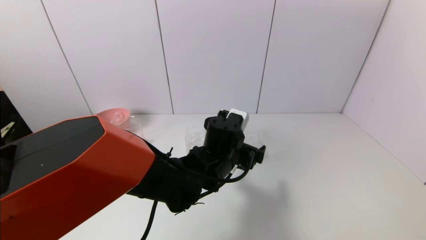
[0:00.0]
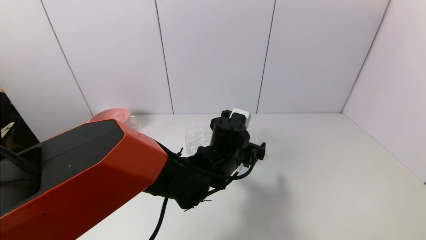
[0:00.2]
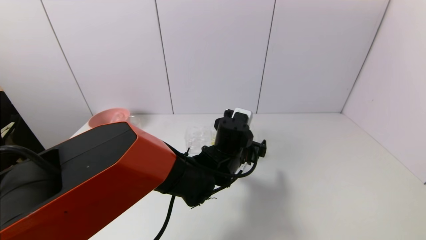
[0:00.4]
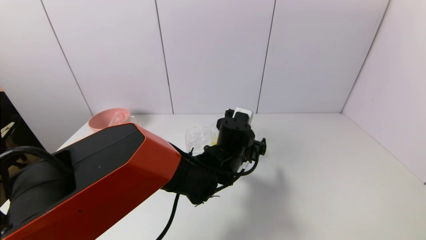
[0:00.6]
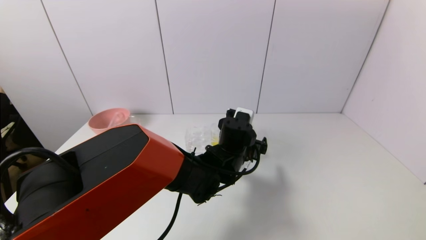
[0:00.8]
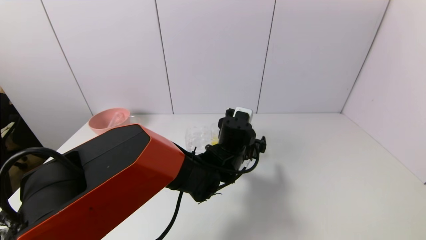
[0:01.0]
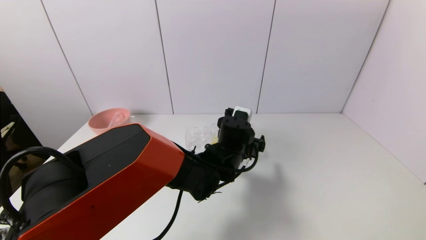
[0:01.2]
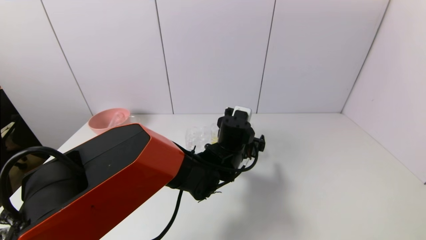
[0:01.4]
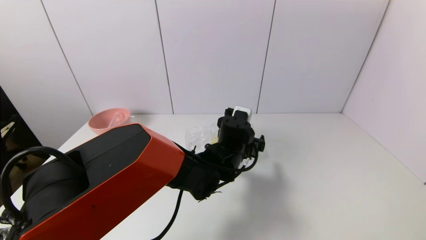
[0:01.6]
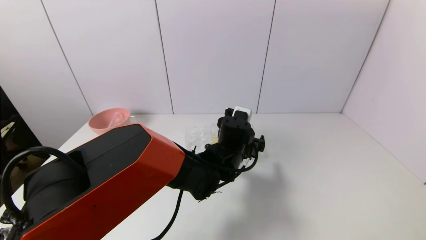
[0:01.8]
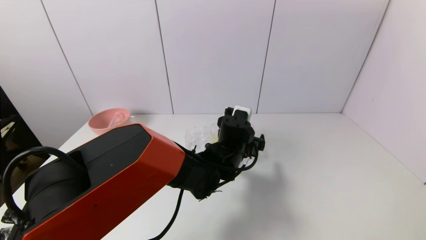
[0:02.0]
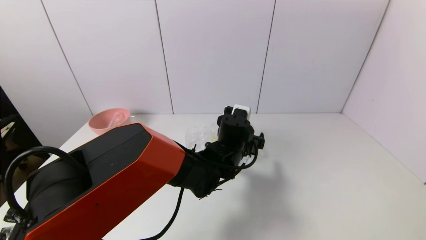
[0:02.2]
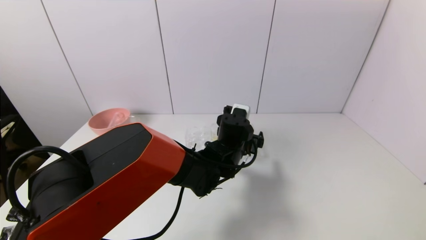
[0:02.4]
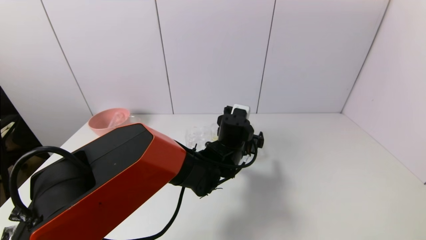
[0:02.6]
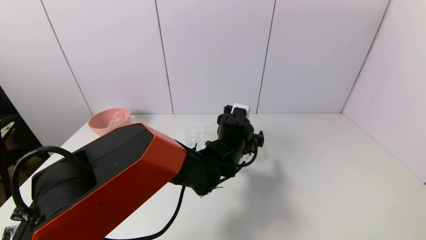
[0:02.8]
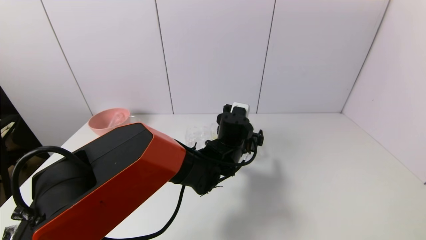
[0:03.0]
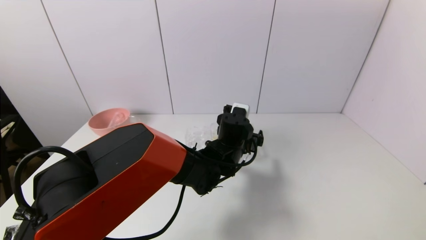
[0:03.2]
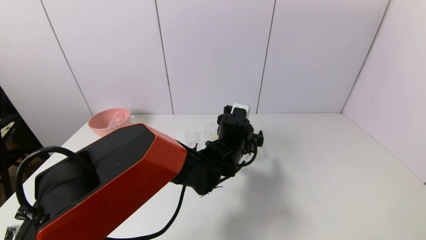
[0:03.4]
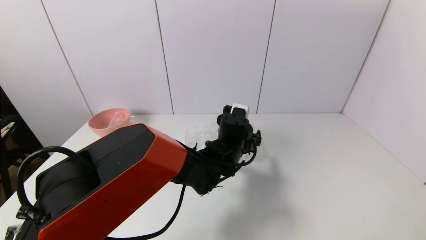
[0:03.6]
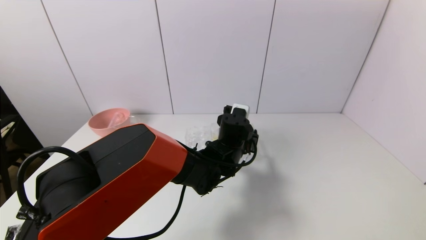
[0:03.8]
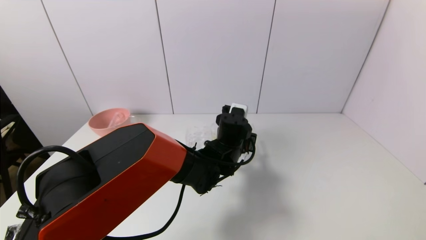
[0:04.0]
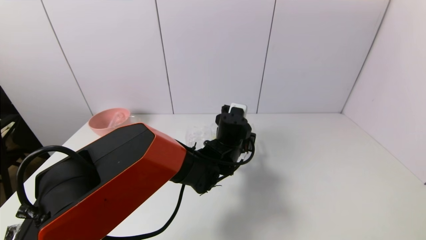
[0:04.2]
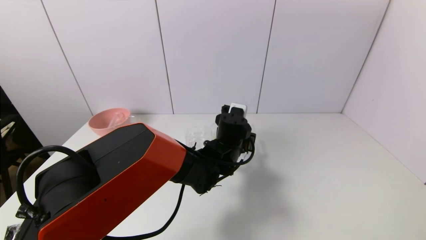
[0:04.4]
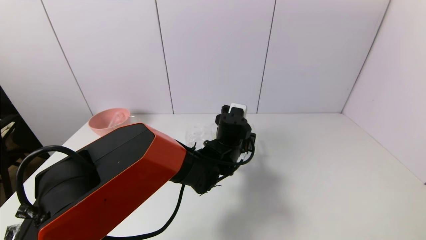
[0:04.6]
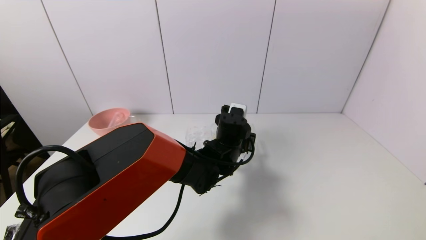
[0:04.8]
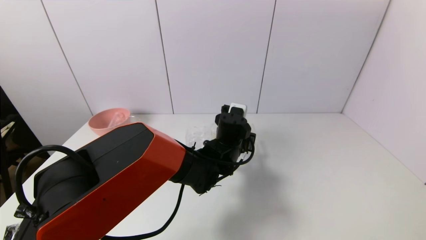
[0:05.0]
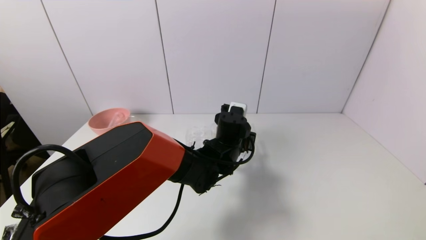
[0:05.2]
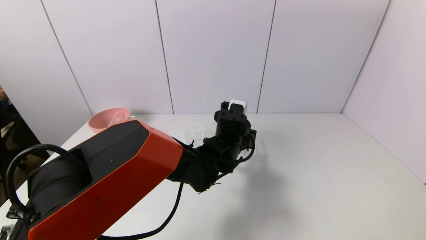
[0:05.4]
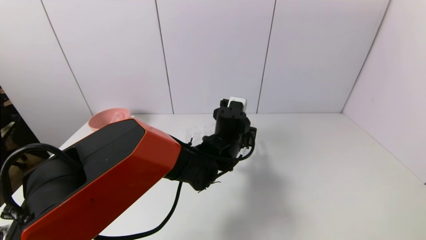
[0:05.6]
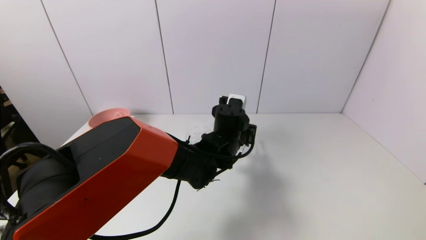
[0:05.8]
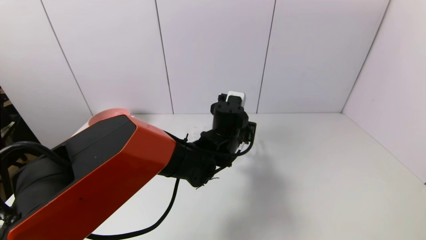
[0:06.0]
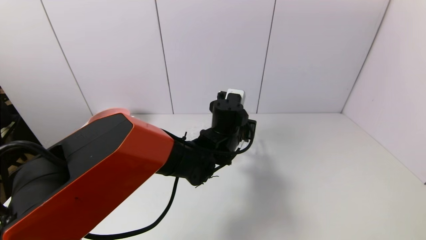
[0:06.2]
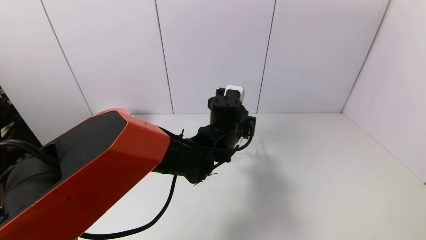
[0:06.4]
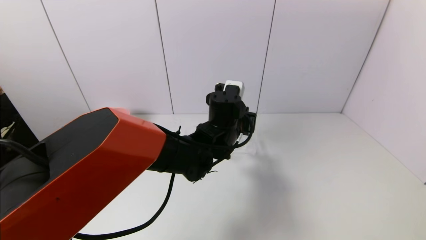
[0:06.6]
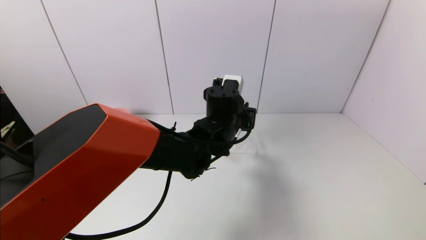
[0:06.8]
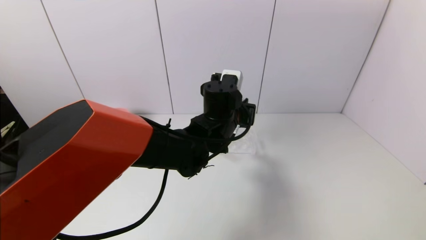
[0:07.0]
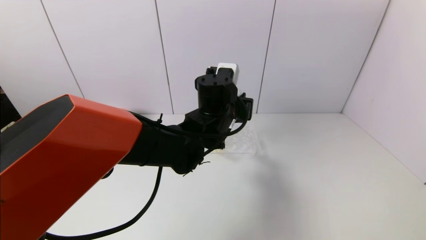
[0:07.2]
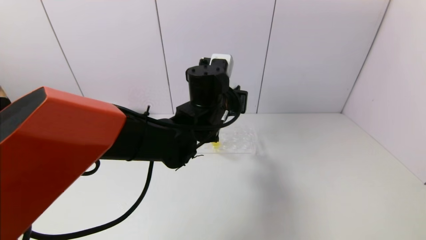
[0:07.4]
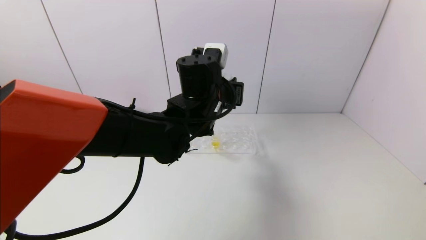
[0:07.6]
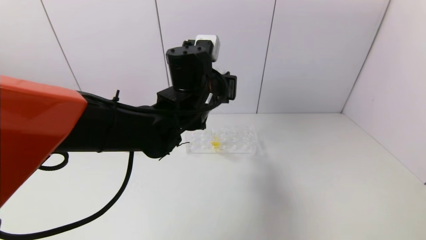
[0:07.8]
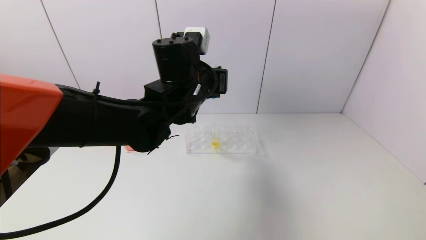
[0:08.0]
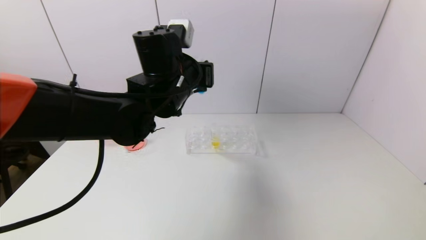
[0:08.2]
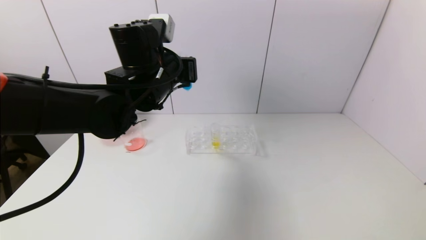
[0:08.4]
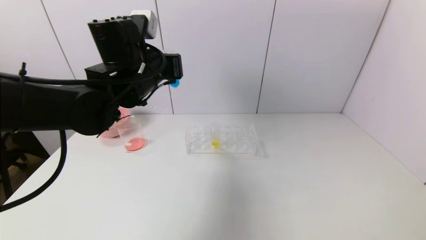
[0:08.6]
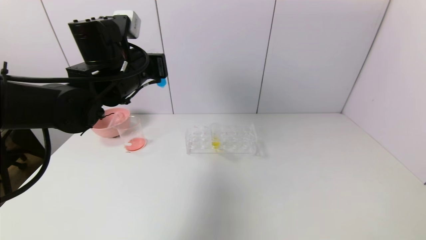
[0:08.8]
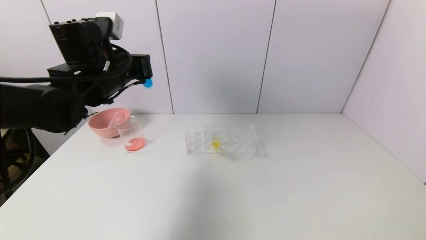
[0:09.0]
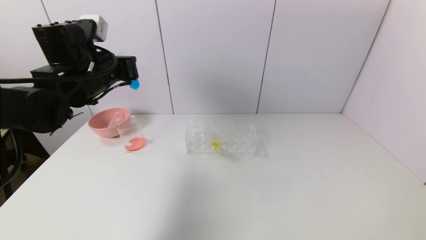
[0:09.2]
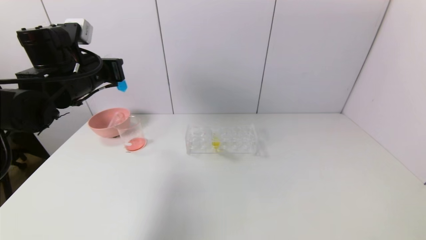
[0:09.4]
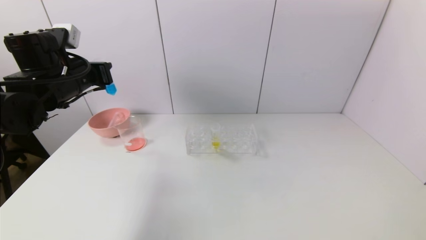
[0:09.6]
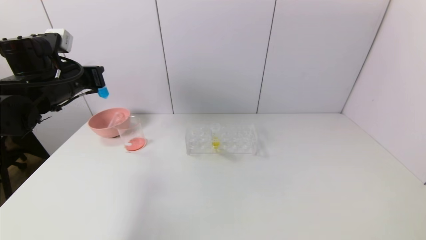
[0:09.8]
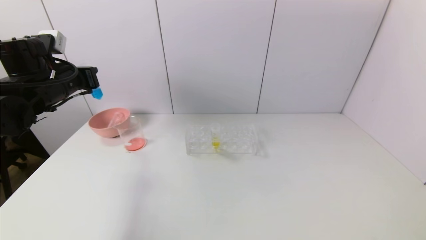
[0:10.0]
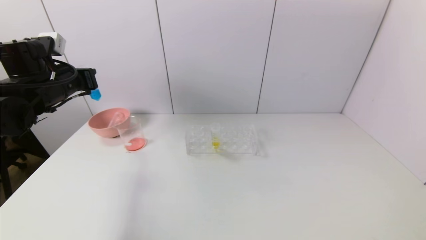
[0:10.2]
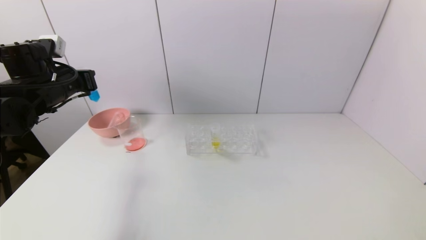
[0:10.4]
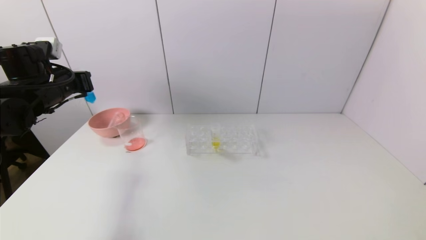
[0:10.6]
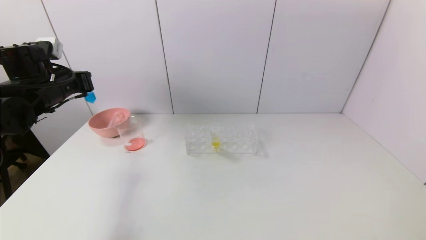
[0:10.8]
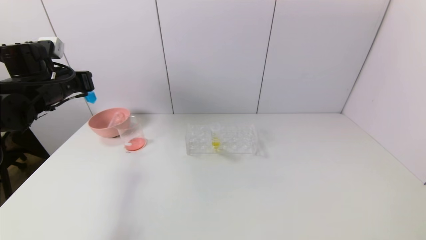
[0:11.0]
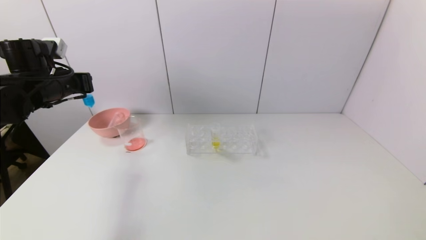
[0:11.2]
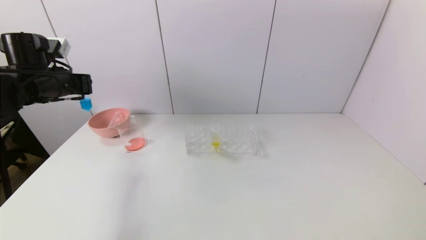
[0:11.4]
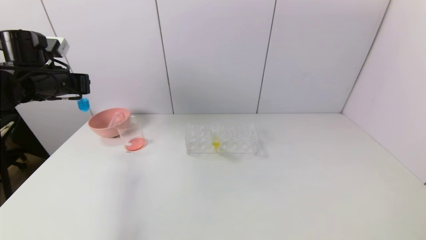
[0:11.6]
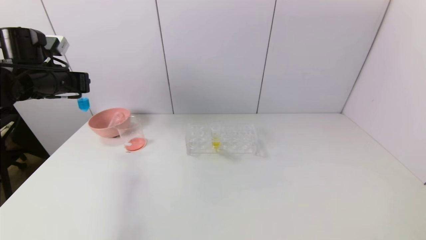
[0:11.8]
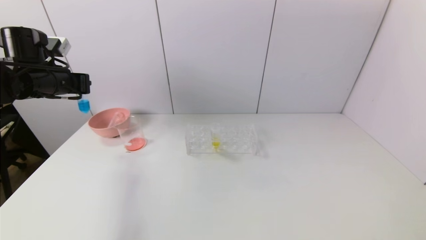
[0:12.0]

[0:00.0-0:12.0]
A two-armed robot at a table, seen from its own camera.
Task of the whole recording: pick up the test tube with red pigment and the test tube with blue pigment by grippers and pour them into the container.
Step, 0.0 to 4.4 s: Grasp the blue reagent with the left gripper.
0.0 to 1.6 s: There are only small adjustments of the grippers.
1.6 to 3.0 s: Both grippers stay put.
3.0 to 4.4 s: The left gripper closes its fingers.
4.4 to 6.0 s: The grippers make only small movements.
6.0 to 7.6 s: The left gripper heads upward and to the left, covering about 10 cm.
7.6 to 9.0 s: The left gripper shifts about 20 cm to the left.
9.0 to 10.4 s: The left gripper shifts about 15 cm to the left.
10.4 to 12.0 s: The grippers move only a little.

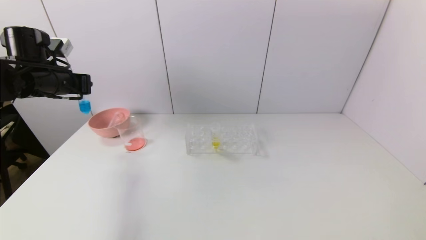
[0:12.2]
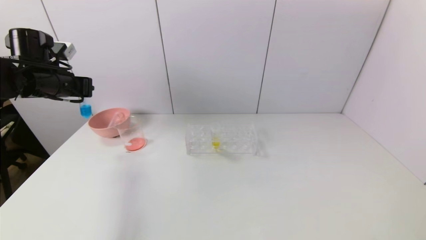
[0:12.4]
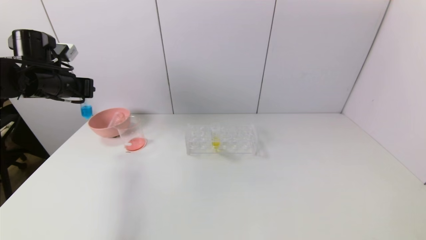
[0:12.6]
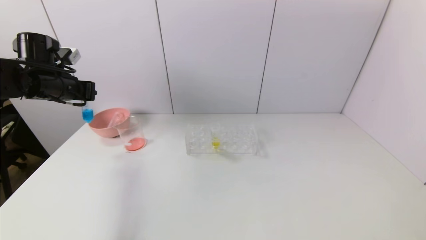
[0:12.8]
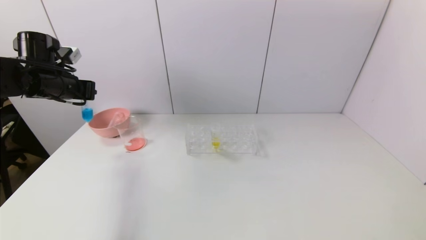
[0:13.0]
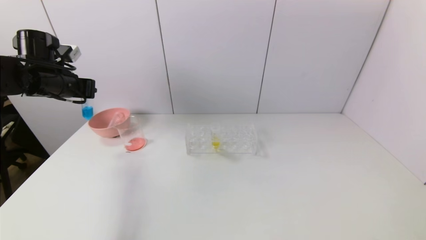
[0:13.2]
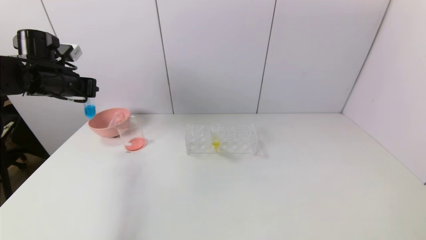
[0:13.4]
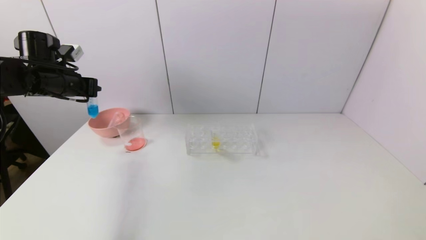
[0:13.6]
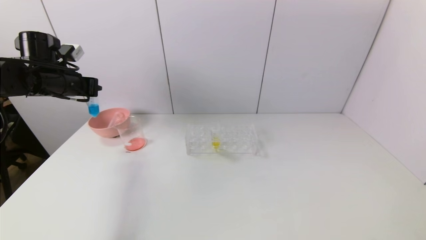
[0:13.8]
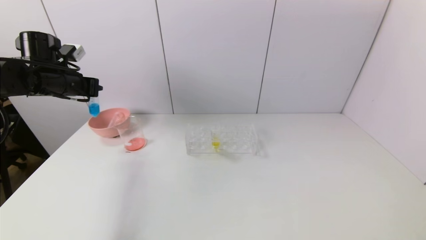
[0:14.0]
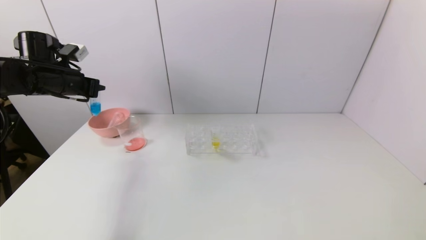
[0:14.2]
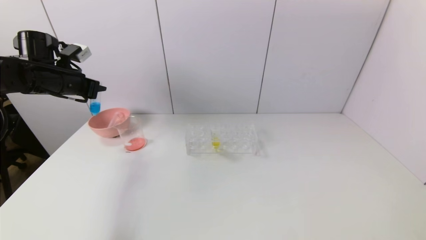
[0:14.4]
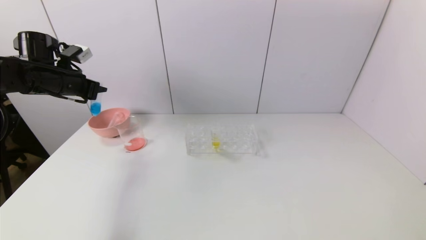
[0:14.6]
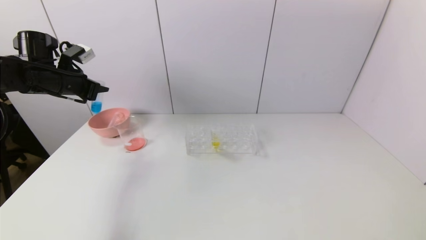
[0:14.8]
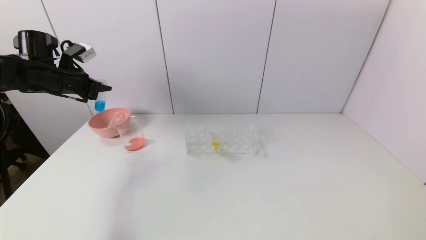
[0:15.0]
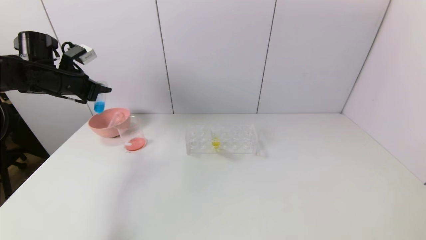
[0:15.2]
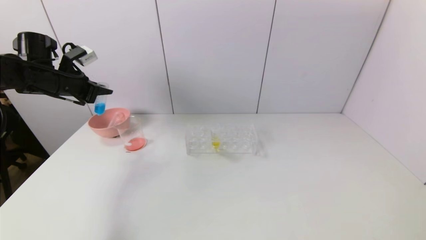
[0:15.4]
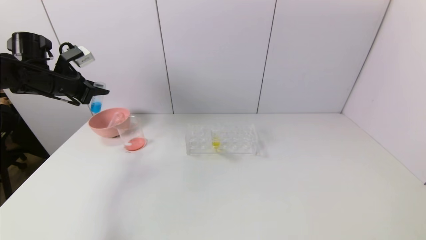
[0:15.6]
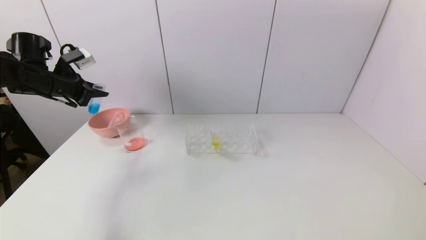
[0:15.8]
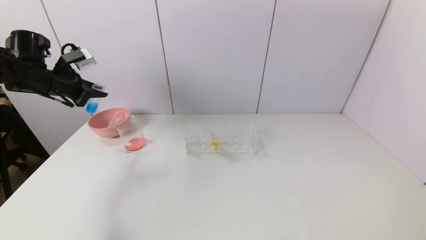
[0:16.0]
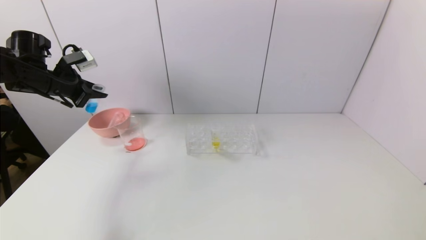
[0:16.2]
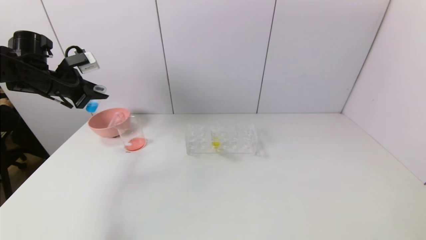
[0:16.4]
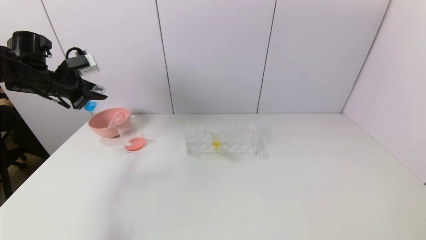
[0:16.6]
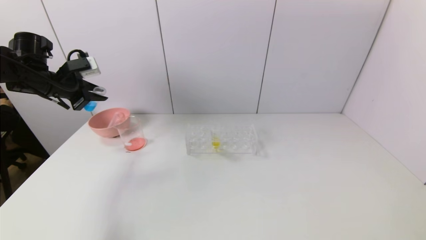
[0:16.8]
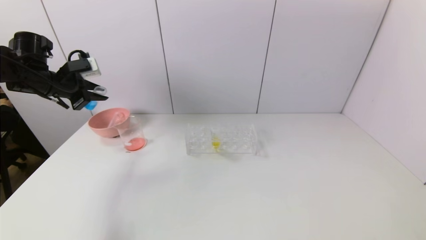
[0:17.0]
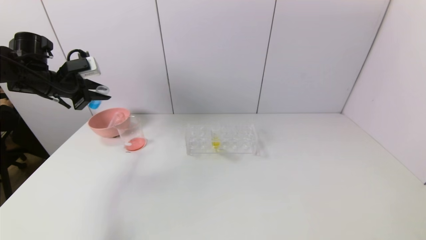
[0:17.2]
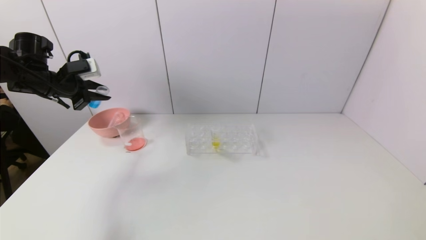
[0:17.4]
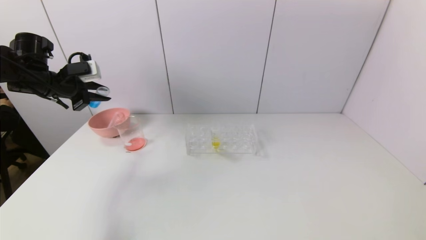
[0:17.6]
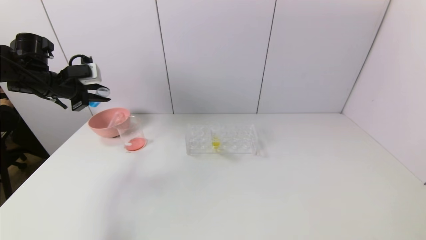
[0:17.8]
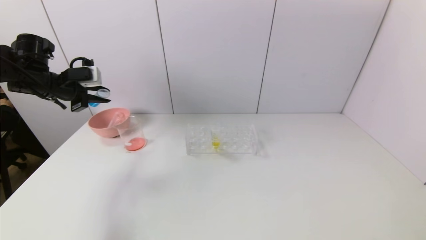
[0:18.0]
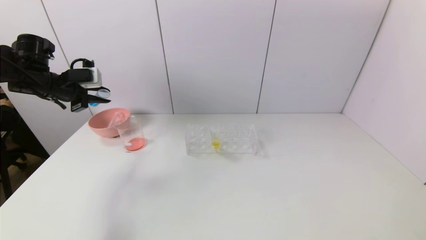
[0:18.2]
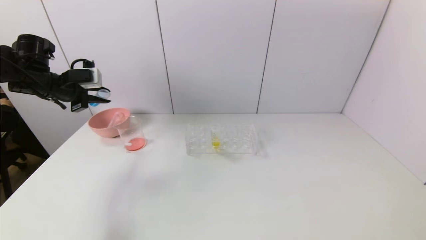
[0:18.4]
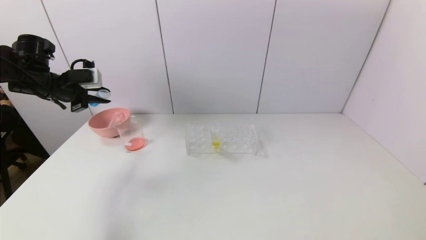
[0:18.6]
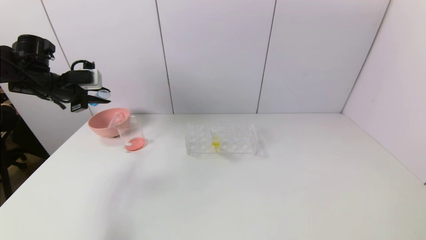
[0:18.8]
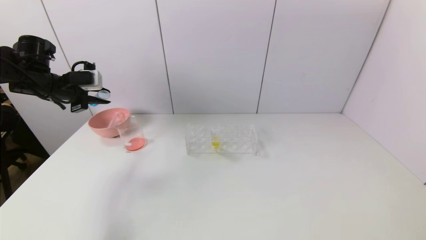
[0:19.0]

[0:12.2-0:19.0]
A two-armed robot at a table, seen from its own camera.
Task of the whole recording: pick up the test tube with red pigment and the test tube with blue pigment by grippers and pour them into the container.
12.2 to 13.6 s: There are only small adjustments of the grippers.
17.6 to 19.0 s: The grippers move only a little.
